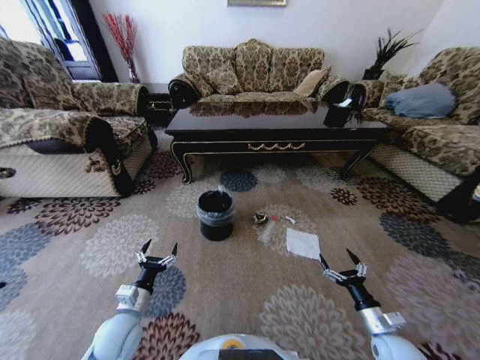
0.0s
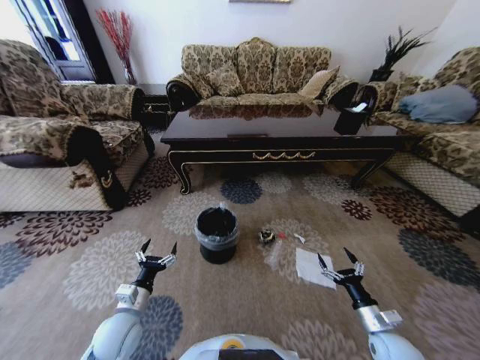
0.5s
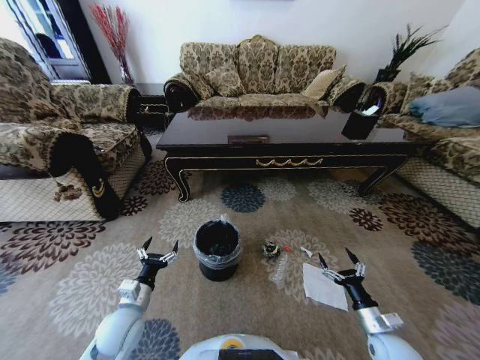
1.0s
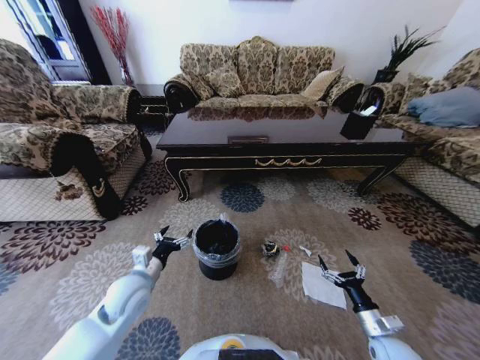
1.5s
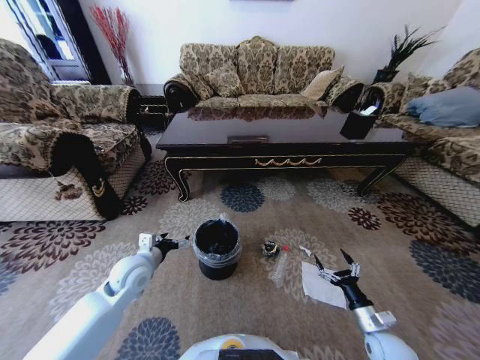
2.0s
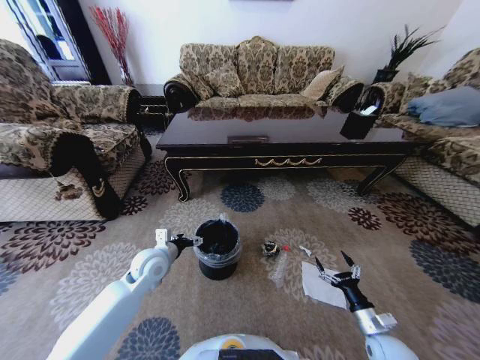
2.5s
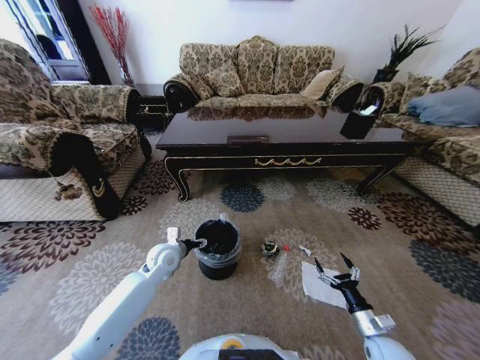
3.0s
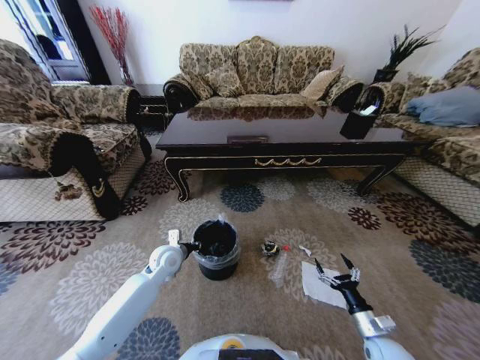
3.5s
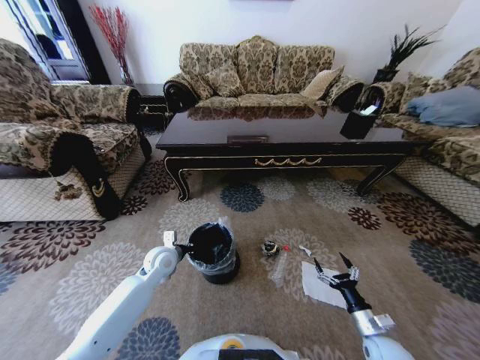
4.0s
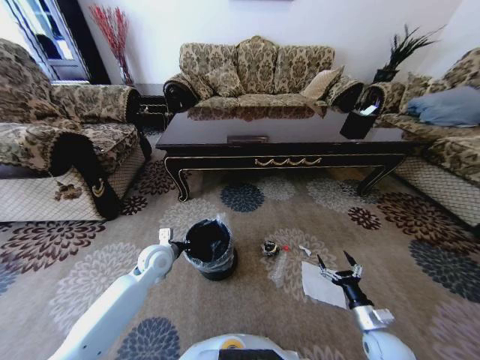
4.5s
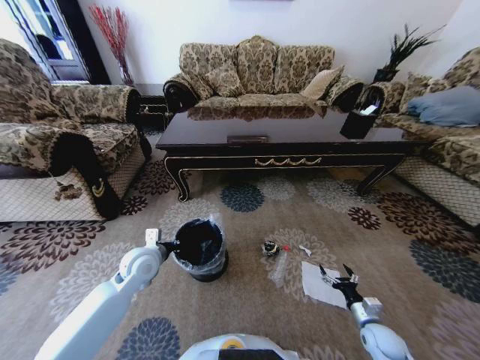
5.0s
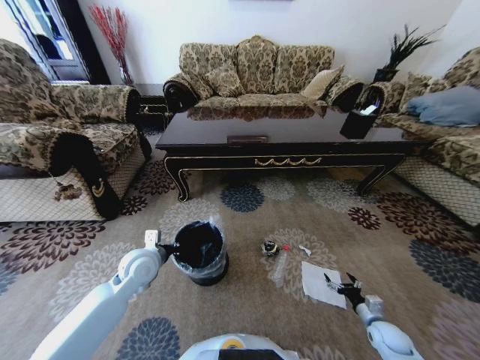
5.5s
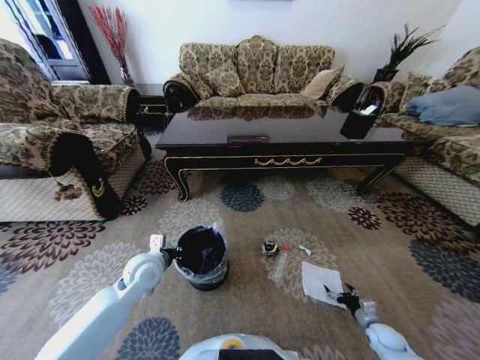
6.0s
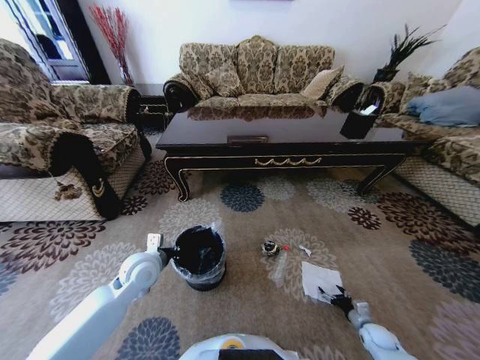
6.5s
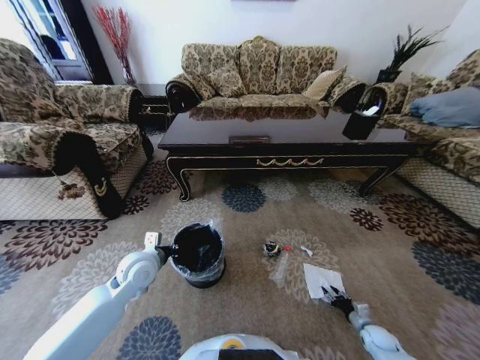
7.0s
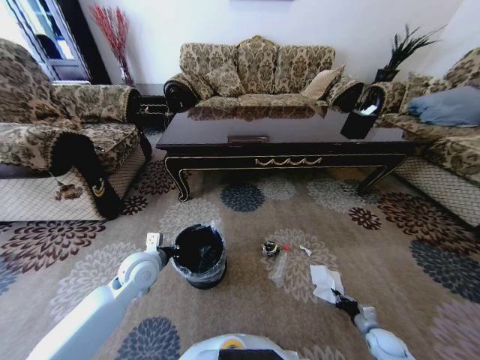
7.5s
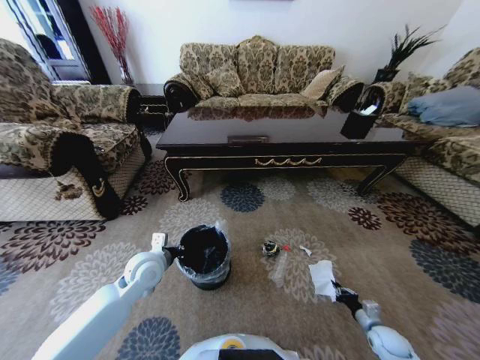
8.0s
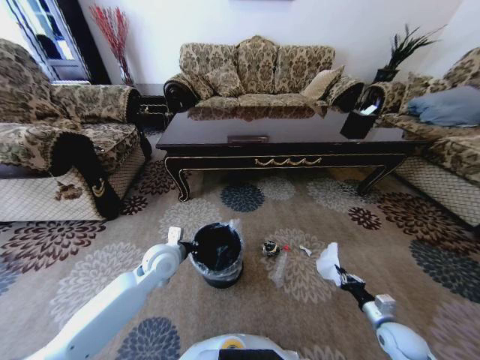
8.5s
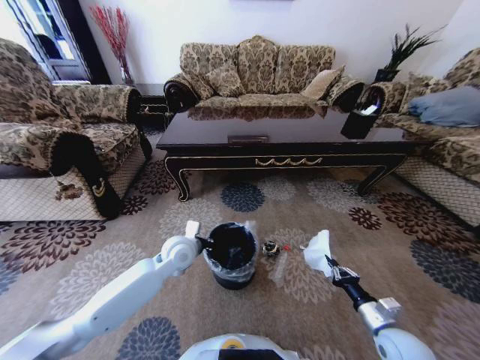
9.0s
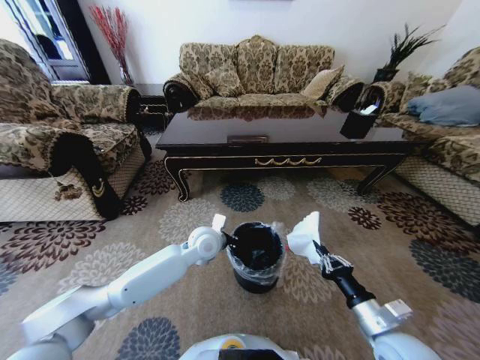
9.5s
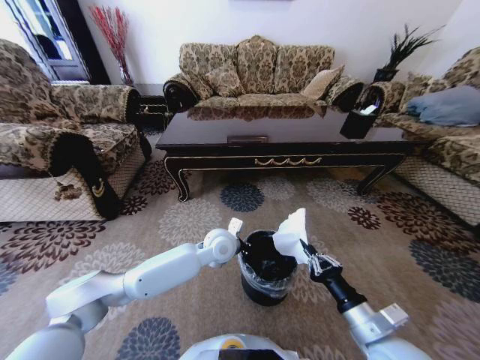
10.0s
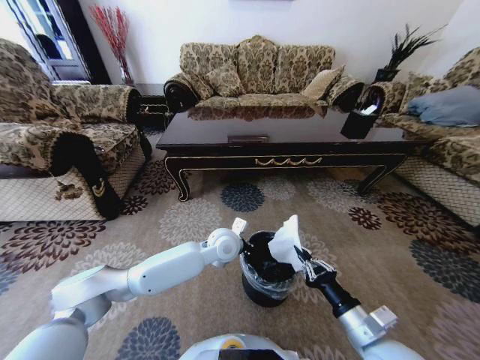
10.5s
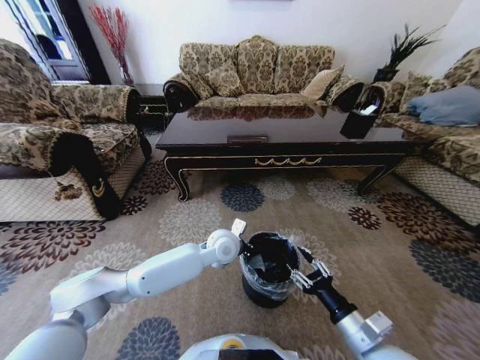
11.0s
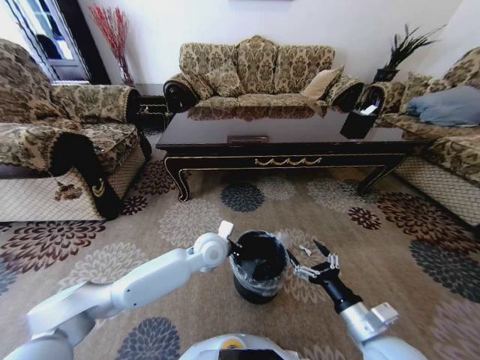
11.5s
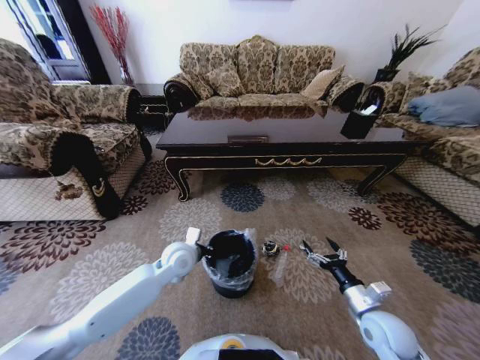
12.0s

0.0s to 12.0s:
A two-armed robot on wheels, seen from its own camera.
Task of the whole recording: Move to the front of the table and pick up the trash from the floor, then place it into the trash bin.
0.0s to 2.0s: The left gripper heads forward and upward, covering approximately 15 cm.
2.0s to 4.0s: The left gripper moves forward and downward, roughly 10 cm, and closes.
4.0s to 6.0s: The left gripper is displaced backward and upward by roughly 10 cm. Meanwhile the right gripper goes roughly 15 cm downward and to the right.
6.0s to 8.0s: The right gripper closes.
8.0s to 10.0s: The right gripper goes approximately 35 cm upward and to the left. Meanwhile the left gripper moves to the right, approximately 20 cm.
10.0s to 12.0s: The left gripper moves to the left, some 10 cm. Meanwhile the right gripper goes approximately 10 cm downward, to the right and forward, and opens its fingers.

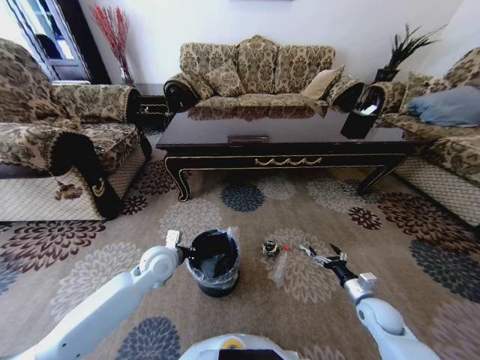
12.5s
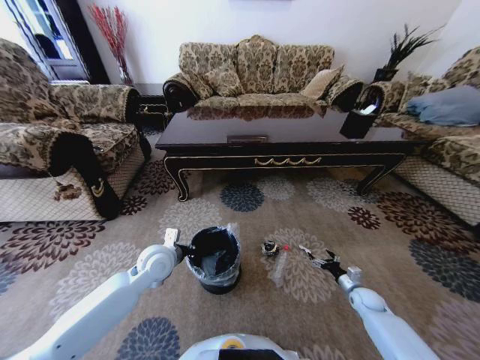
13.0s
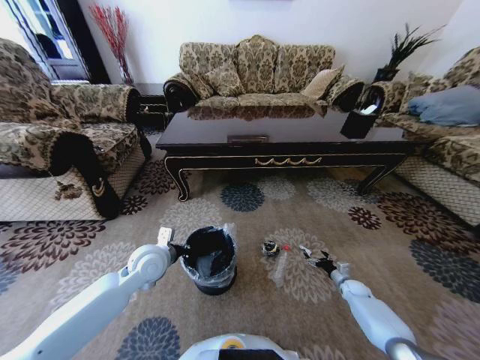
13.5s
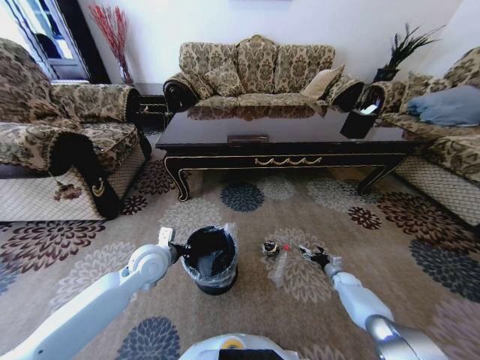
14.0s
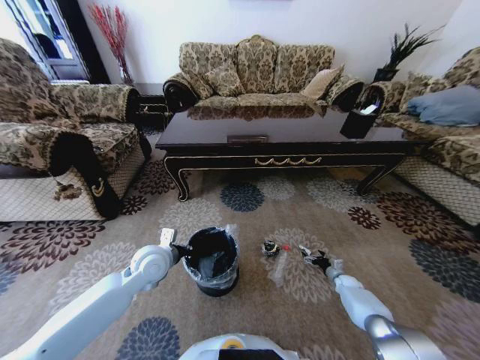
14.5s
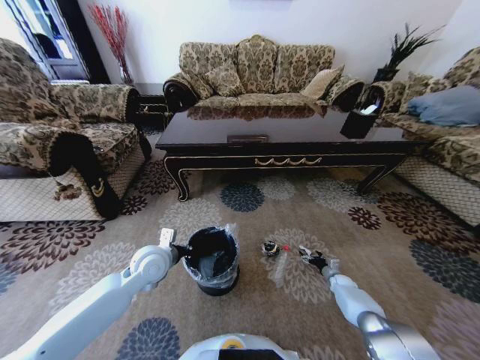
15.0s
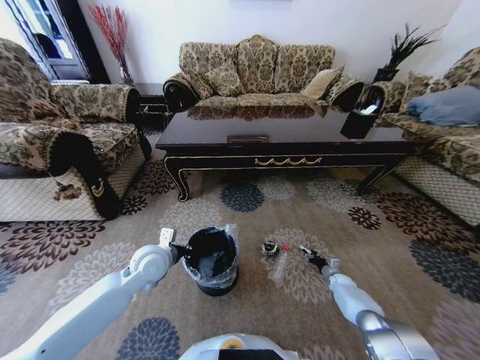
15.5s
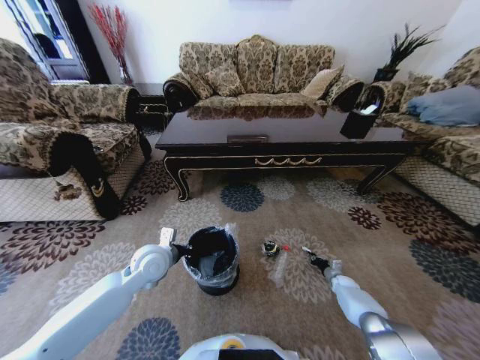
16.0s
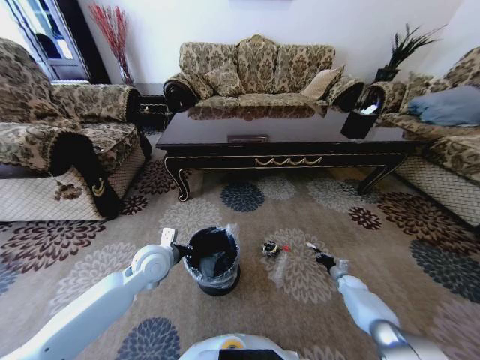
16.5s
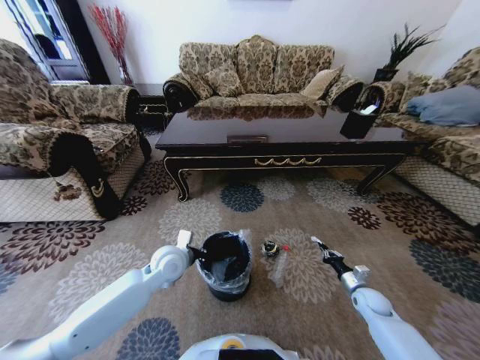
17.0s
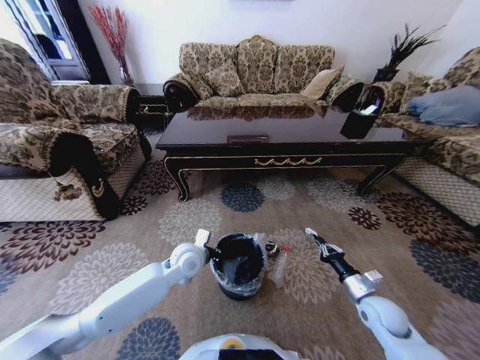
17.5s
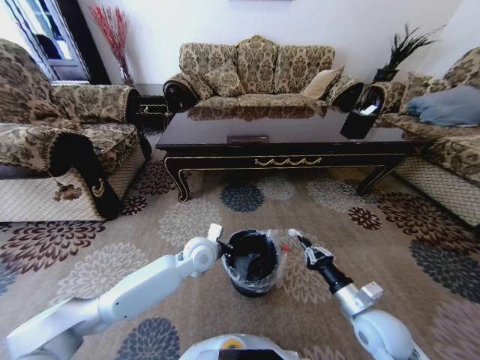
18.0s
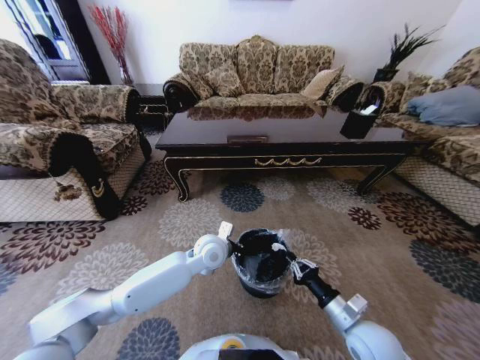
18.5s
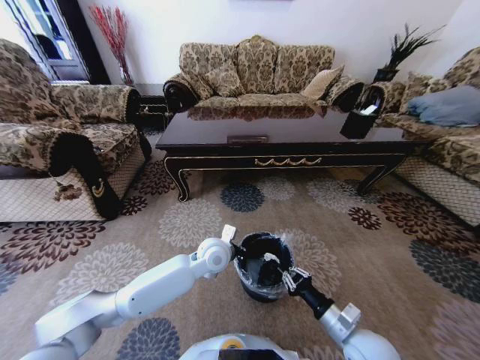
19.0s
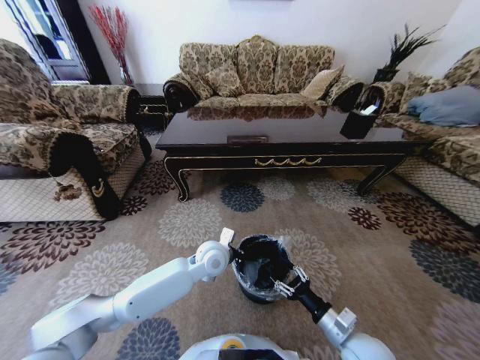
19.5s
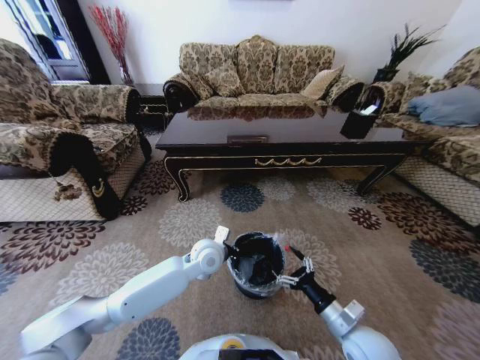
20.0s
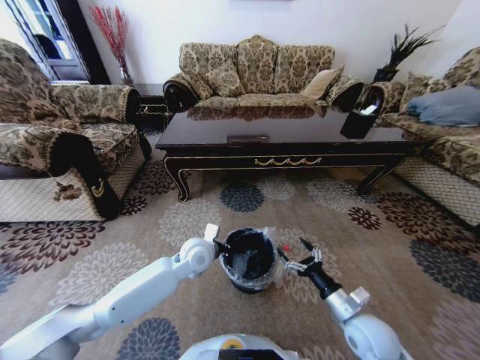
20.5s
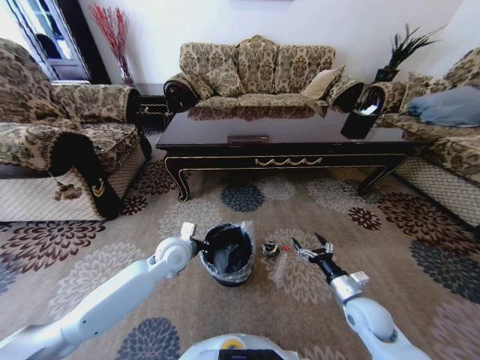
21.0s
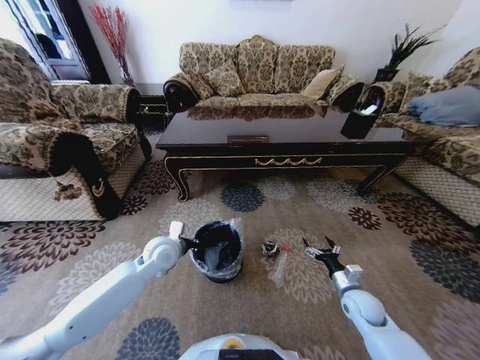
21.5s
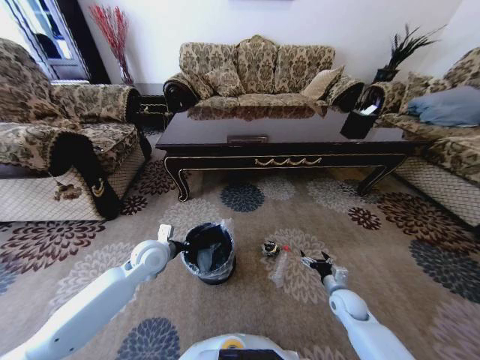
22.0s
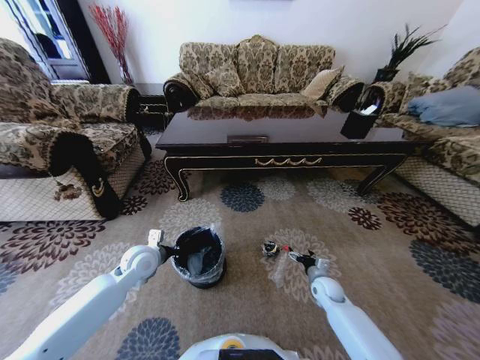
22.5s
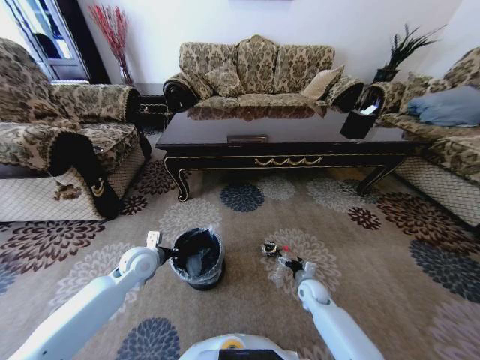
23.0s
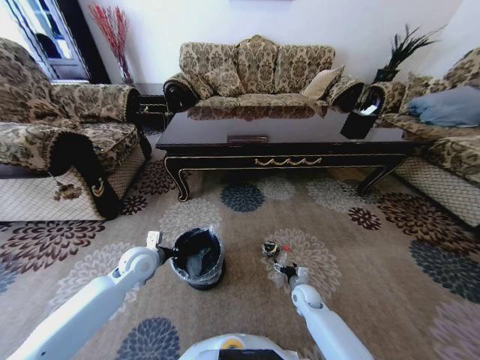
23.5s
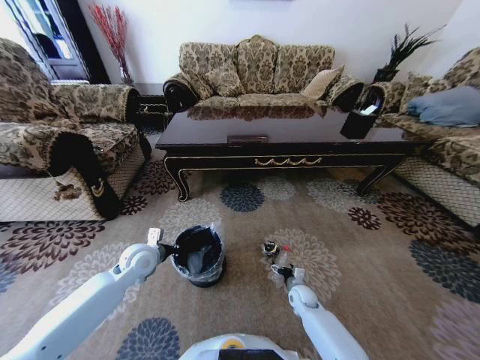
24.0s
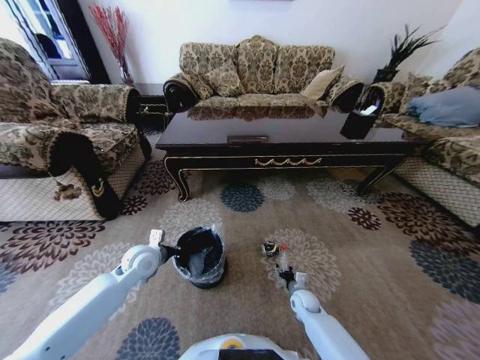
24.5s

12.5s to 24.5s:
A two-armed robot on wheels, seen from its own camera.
Task of the whole recording: Move to the front of the table and pick up the trash from the floor, then place it into the trash bin.
12.5s to 14.5s: The right gripper shifts about 20 cm downward, forward and to the right.
14.5s to 16.5s: The right gripper closes up.
16.5s to 18.5s: The left gripper shifts some 15 cm to the right. The right gripper goes approximately 35 cm upward, to the left and backward.
18.5s to 20.5s: The right gripper opens up.
20.5s to 22.5s: The left gripper shifts about 15 cm to the left. Meanwhile the right gripper goes about 20 cm forward and downward.
22.5s to 24.5s: The right gripper heads downward and to the left, covering roughly 10 cm.

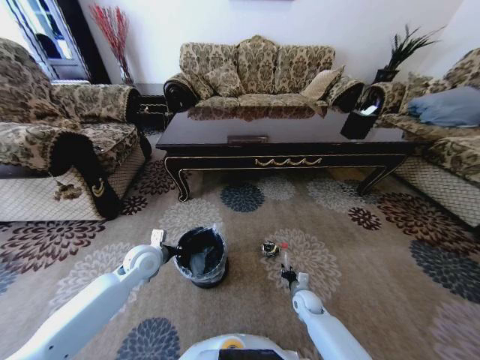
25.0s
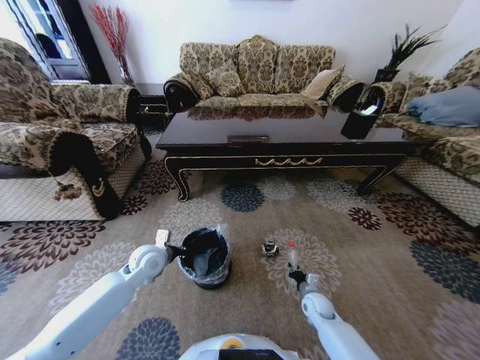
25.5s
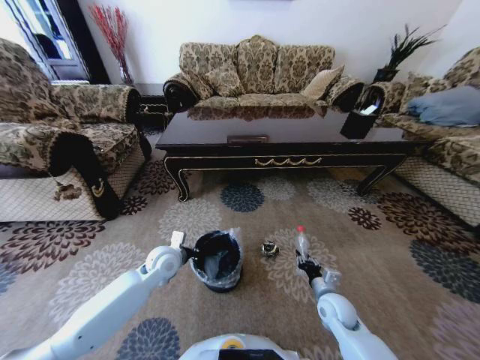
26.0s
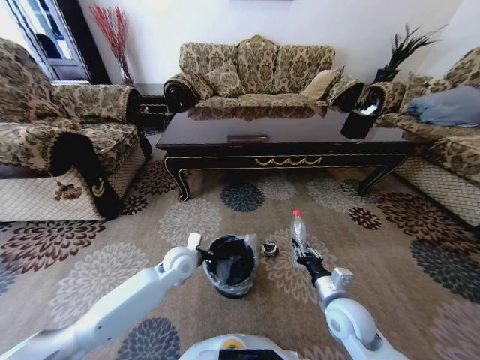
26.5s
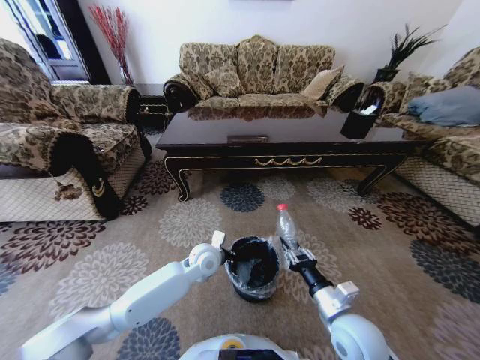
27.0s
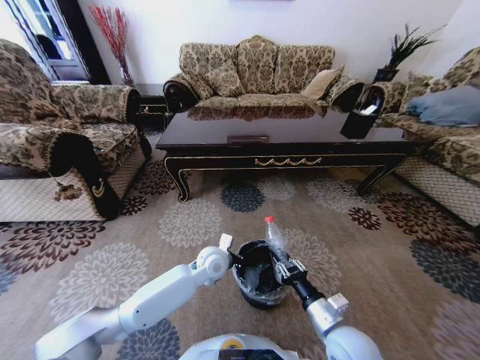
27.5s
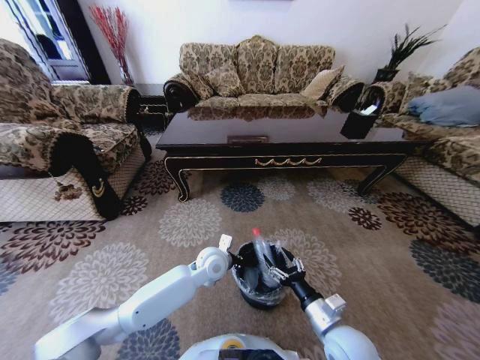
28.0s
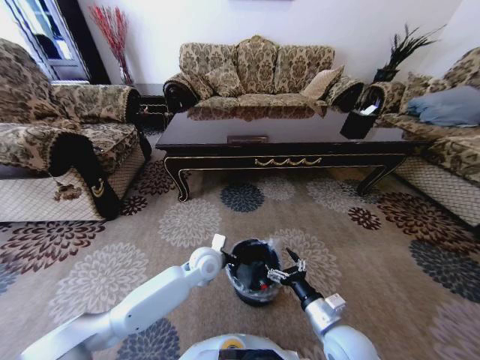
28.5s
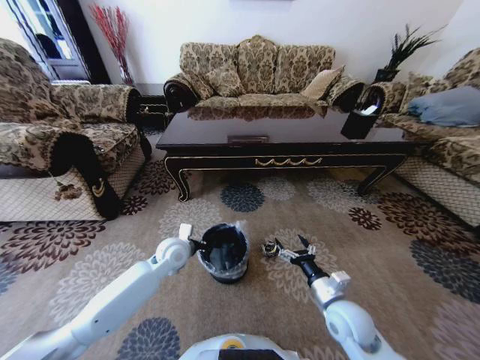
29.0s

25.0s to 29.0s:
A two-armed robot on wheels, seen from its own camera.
Task of the whole recording: Move to the front of the table and pick up the trash from the floor, then place it into the trash bin.
25.0s to 27.0s: The left gripper shifts approximately 20 cm to the right; the right gripper moves upward and backward, about 30 cm.
27.0s to 29.0s: The right gripper moves approximately 5 cm, and opens up. Meanwhile the left gripper shifts about 10 cm to the left.
